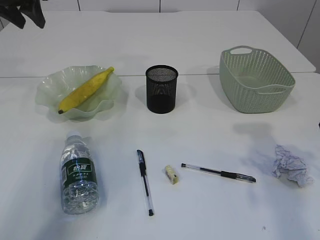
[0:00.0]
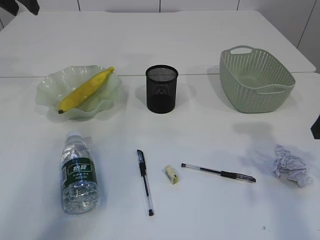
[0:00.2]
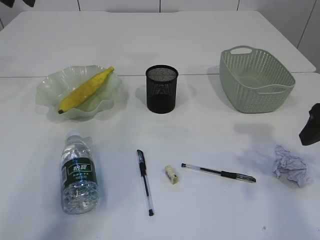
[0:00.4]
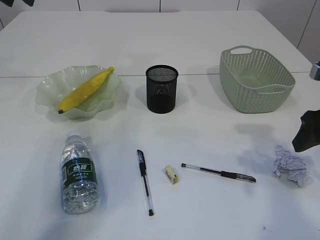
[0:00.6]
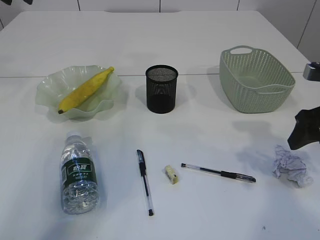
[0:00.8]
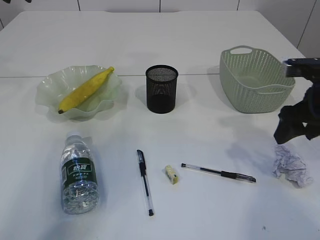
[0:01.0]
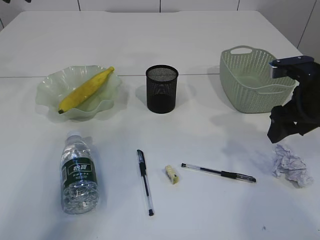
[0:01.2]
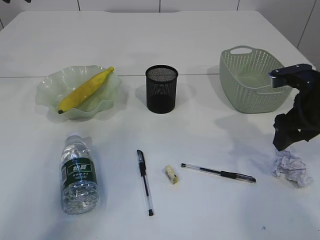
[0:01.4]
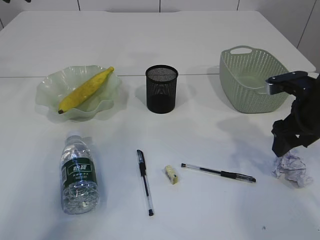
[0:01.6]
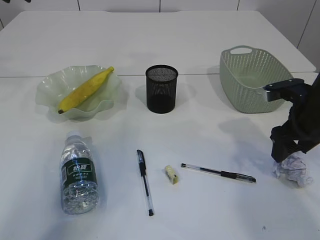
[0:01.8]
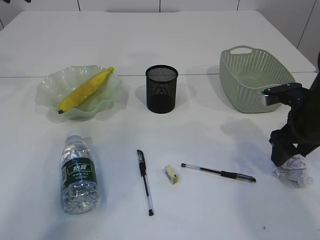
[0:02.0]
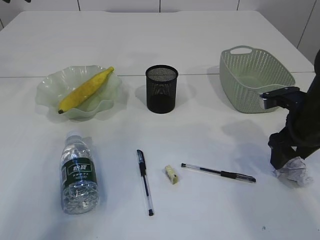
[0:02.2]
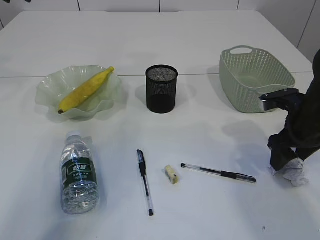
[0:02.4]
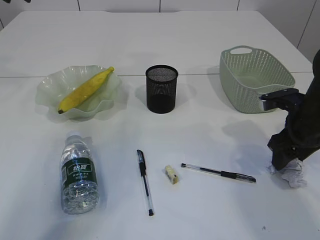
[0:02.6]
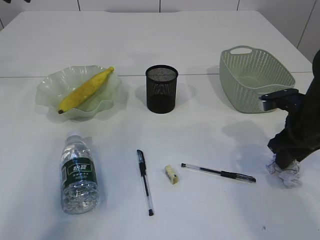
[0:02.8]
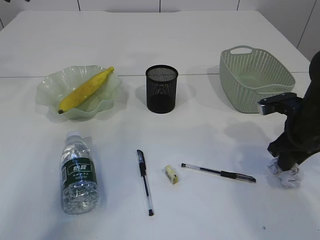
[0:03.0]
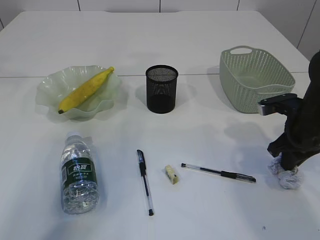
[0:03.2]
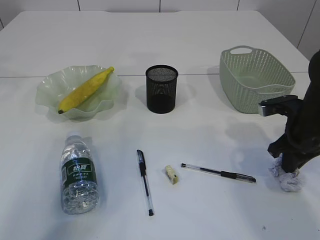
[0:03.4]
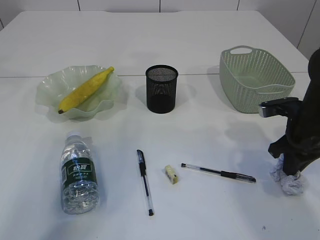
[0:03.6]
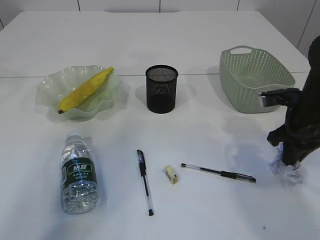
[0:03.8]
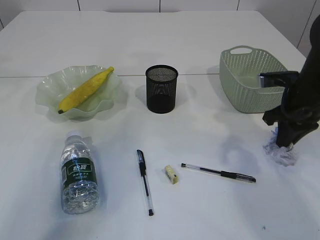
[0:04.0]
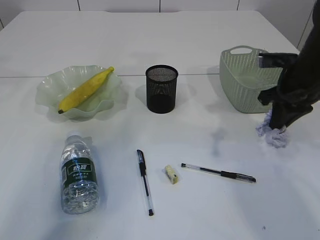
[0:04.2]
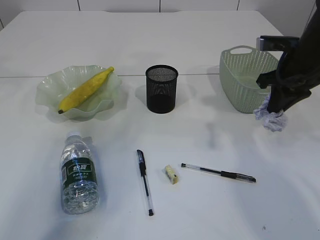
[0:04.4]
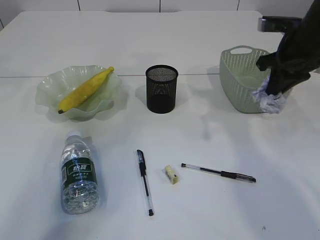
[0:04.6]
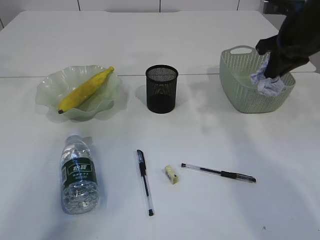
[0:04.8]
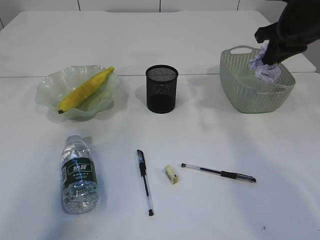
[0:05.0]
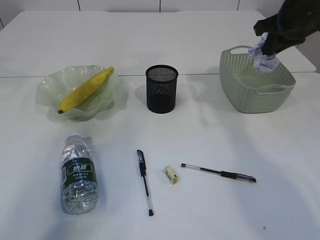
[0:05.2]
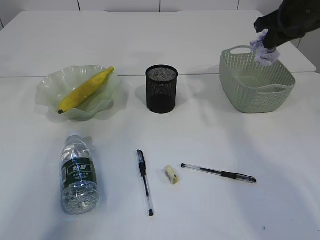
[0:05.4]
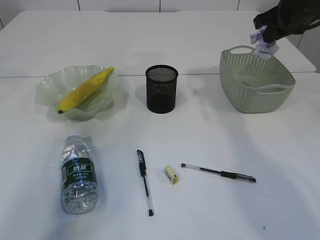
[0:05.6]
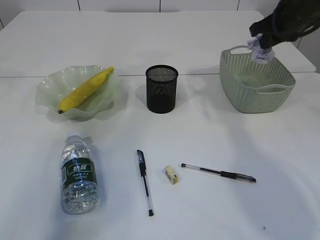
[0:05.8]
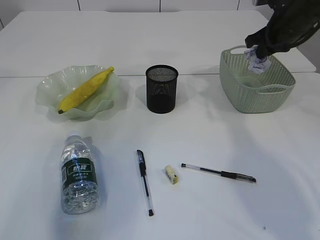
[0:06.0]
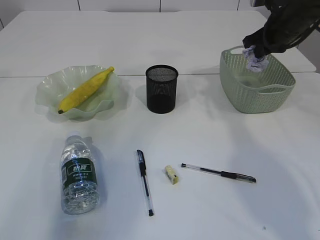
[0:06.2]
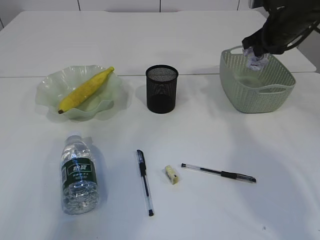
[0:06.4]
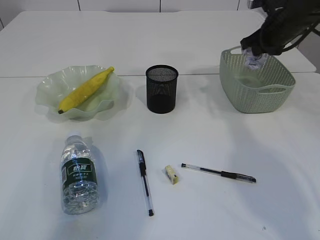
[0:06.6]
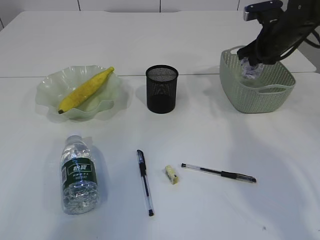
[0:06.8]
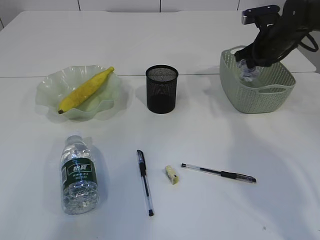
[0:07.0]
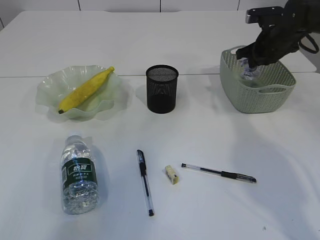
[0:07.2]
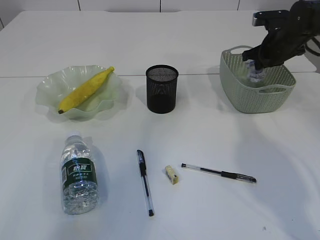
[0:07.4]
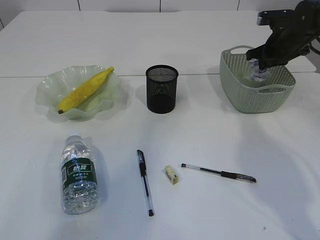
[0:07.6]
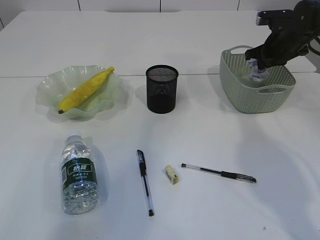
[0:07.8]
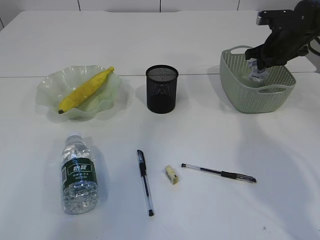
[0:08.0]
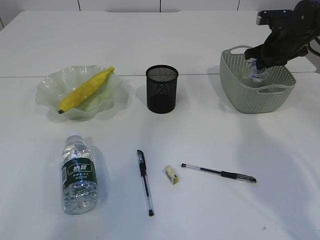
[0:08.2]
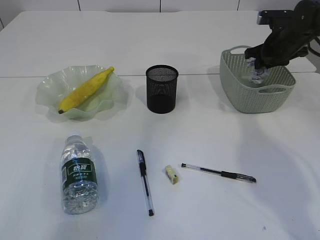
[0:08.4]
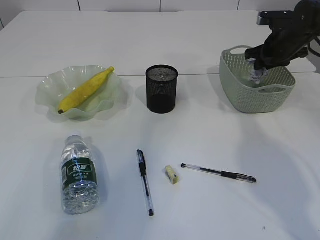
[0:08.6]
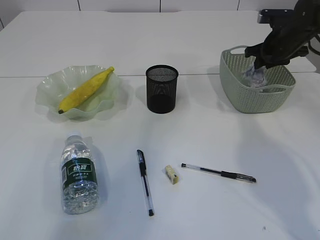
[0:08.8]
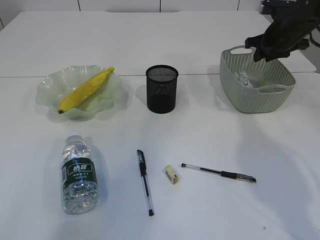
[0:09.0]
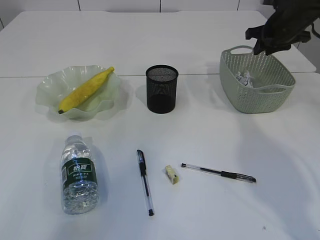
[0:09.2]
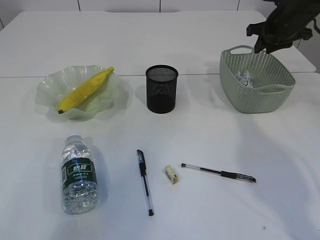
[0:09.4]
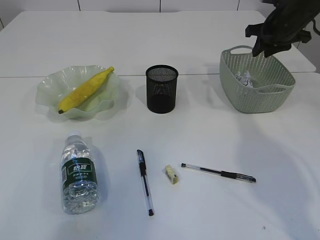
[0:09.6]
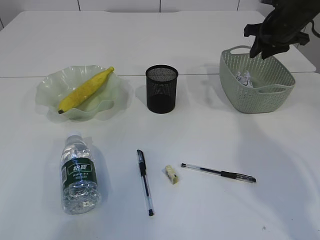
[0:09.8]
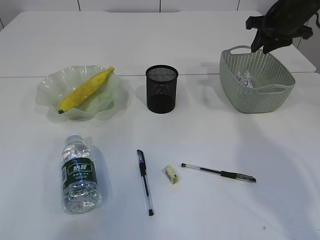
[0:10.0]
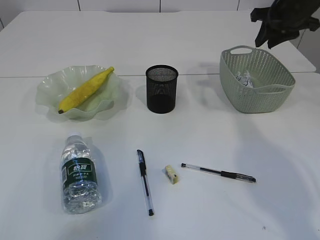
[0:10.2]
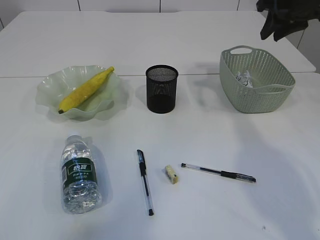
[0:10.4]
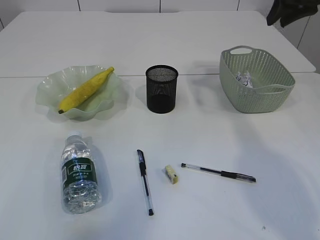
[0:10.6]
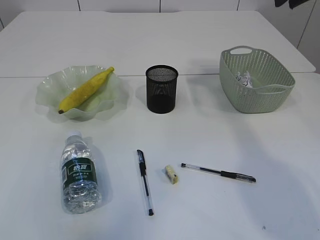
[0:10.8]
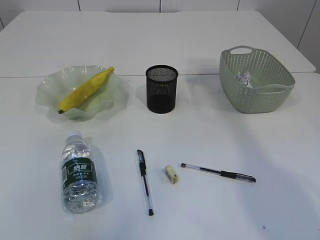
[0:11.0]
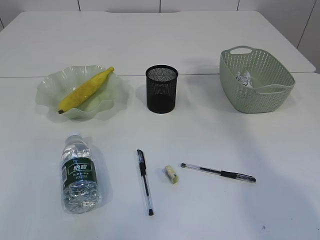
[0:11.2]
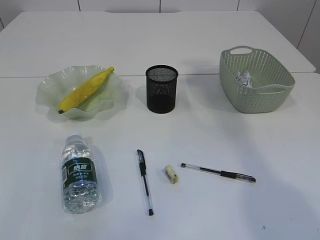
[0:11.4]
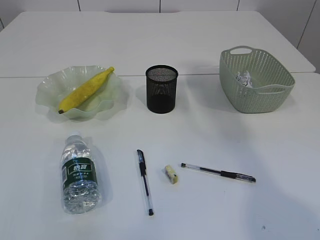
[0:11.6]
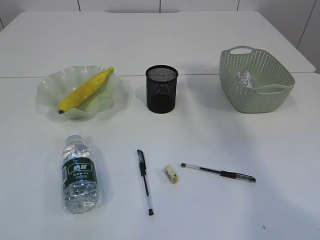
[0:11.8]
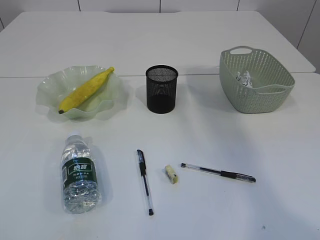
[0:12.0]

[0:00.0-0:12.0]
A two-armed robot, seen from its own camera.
Step, 0:00.0 to 0:04.0: Pick up the waste paper.
Step, 0:04.2 to 0:09.4: Place the waste paper in the basket.
0:00.0 to 0:01.6: The left gripper goes approximately 5 cm upward. The right gripper is displaced downward and forward by roughly 10 cm.
0:01.6 to 0:03.0: The right gripper closes its fingers.
0:03.0 to 0:04.4: The right gripper is displaced upward by some 10 cm, and closes.
0:04.4 to 0:06.0: The right gripper heads forward, covering about 10 cm.
0:06.0 to 0:07.6: The left gripper travels backward and upward by roughly 10 cm, while the right gripper heads downward and forward, covering approximately 10 cm.
0:07.6 to 0:09.0: The right gripper opens.
0:09.0 to 0:10.4: The right gripper goes some 10 cm upward.
0:10.4 to 0:12.0: The left gripper moves backward, roughly 10 cm. The right gripper shifts about 25 cm upward and backward.

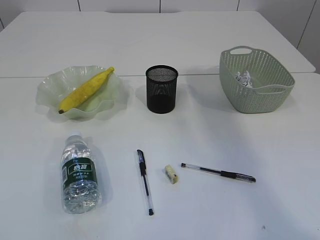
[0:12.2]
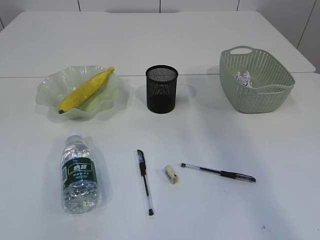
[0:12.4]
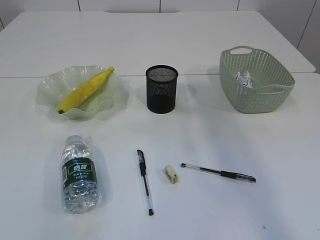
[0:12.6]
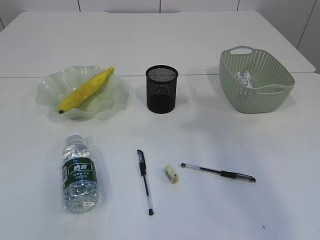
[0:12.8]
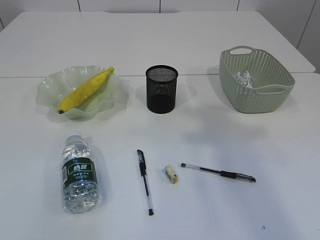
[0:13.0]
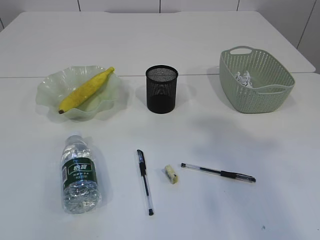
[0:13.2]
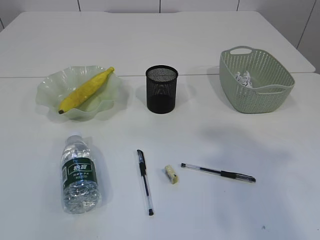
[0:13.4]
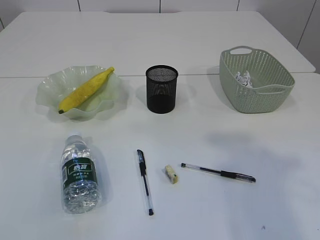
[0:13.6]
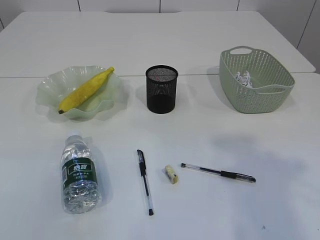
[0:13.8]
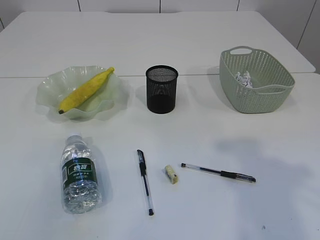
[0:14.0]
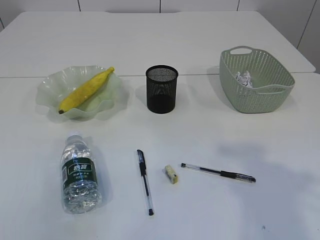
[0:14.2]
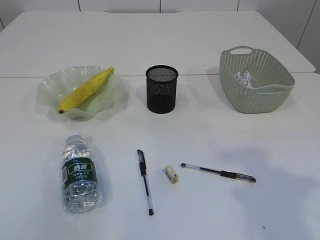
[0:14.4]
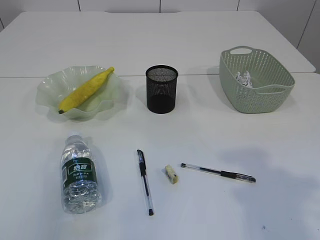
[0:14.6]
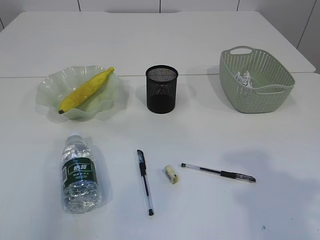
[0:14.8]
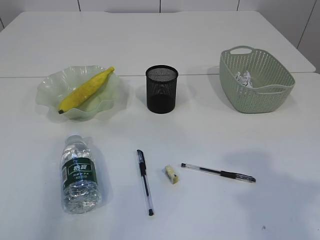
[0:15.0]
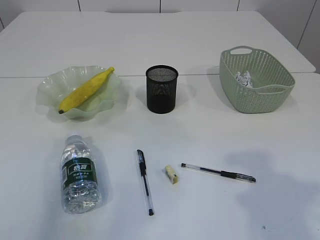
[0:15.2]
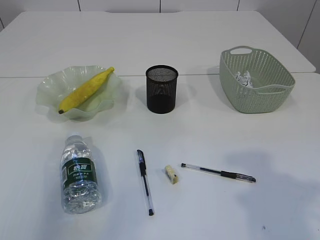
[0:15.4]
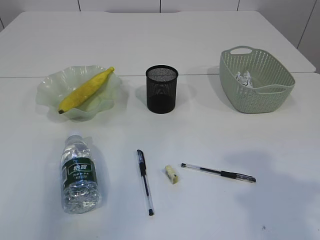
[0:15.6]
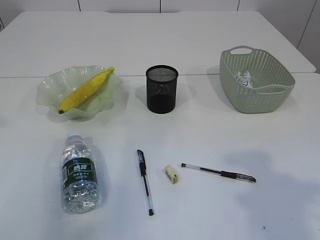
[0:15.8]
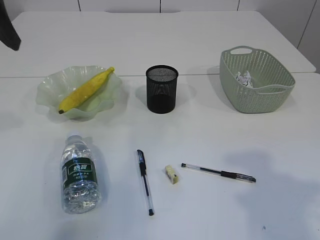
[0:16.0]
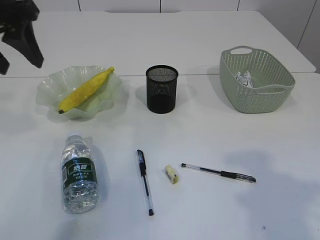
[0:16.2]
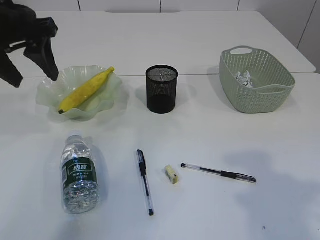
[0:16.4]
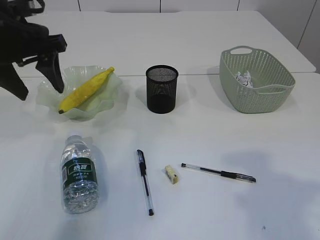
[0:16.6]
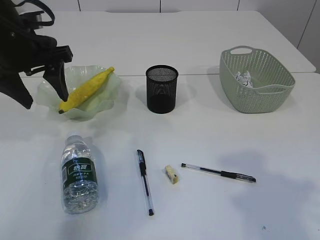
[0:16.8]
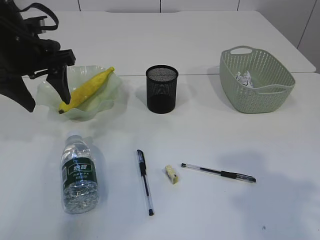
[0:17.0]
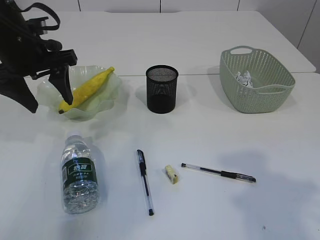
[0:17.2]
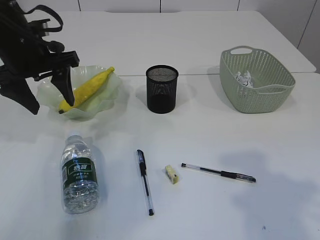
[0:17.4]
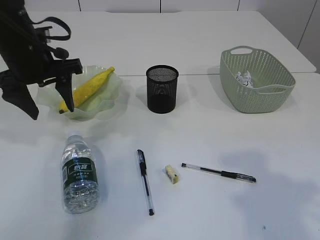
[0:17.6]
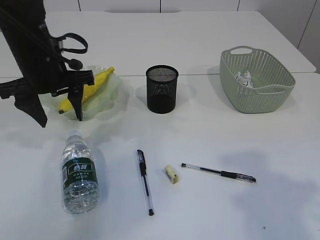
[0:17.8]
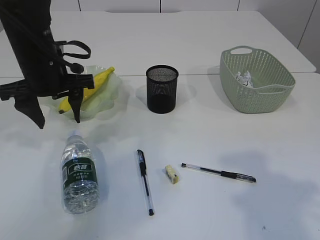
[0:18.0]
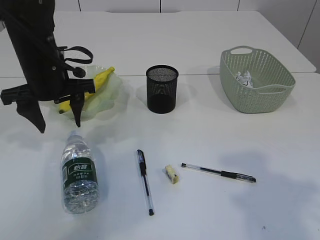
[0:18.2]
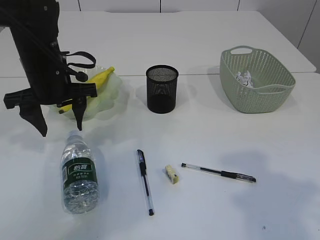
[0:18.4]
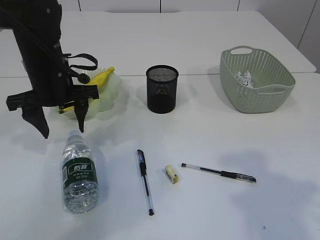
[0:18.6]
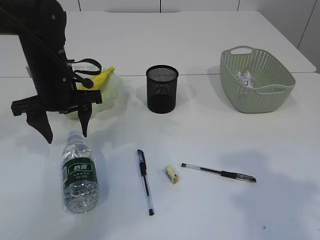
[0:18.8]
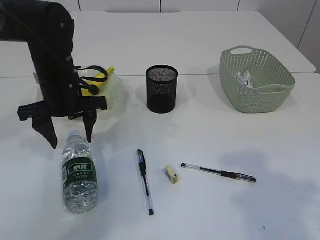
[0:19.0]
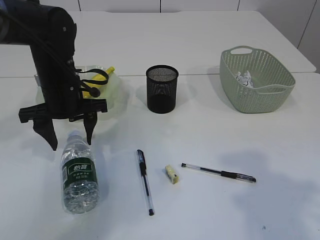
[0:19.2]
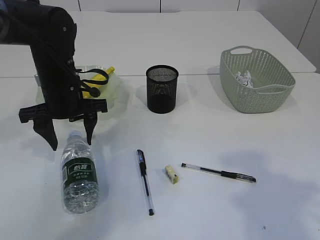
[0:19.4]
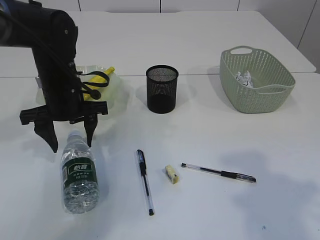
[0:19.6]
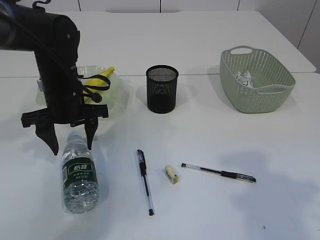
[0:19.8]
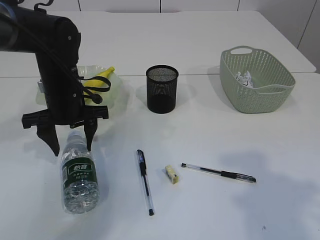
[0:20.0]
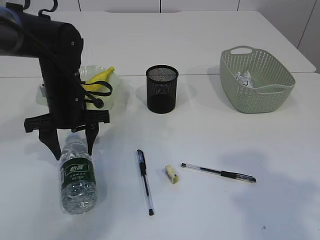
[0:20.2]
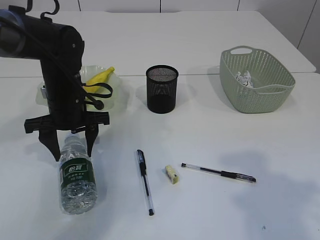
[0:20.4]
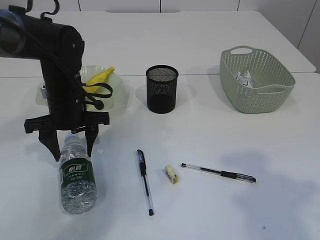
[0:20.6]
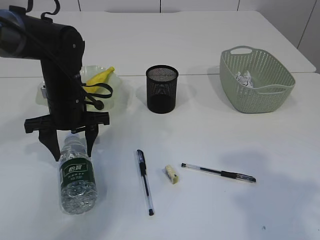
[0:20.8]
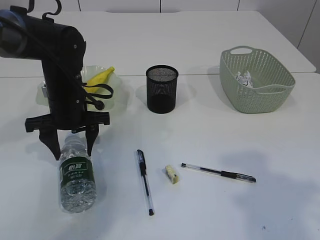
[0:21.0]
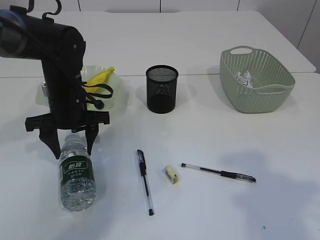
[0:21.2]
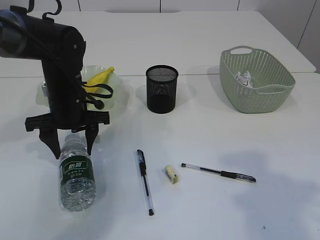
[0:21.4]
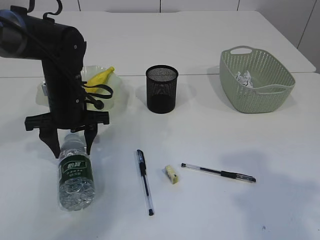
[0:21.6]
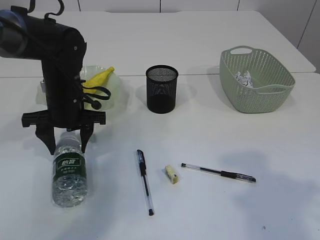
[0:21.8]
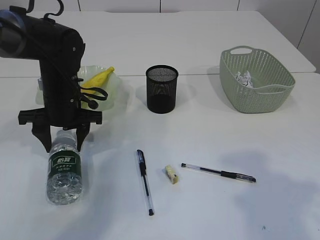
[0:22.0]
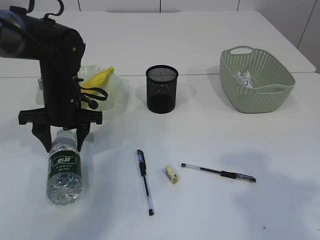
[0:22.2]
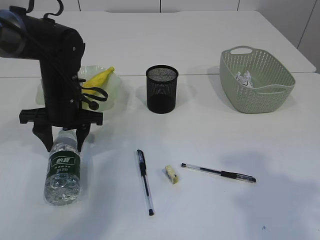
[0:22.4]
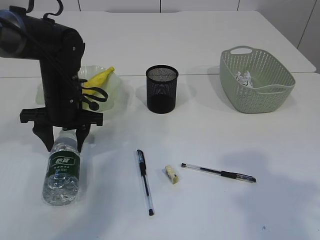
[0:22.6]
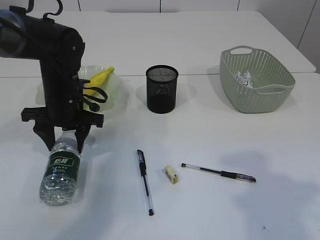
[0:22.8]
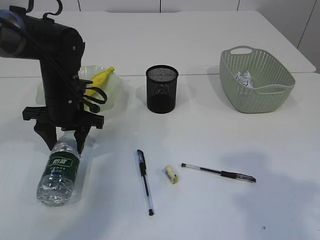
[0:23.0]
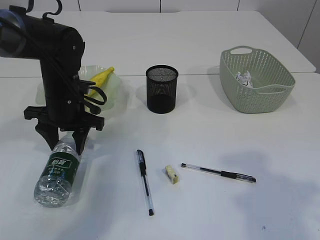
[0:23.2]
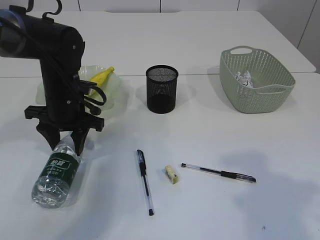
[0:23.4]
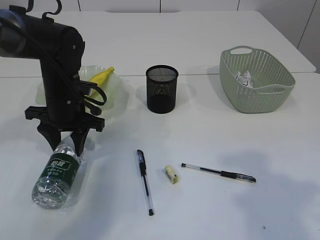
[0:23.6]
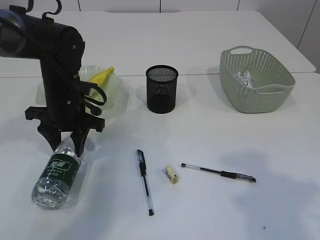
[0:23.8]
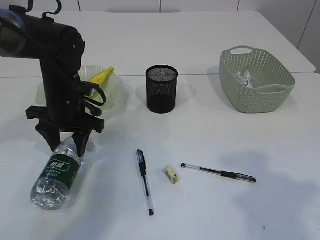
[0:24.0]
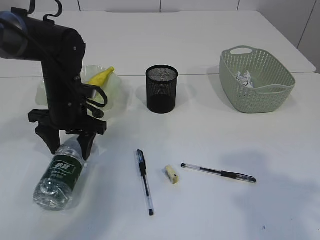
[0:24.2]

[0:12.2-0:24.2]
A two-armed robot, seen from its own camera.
0:12.2 to 0:13.8: The right gripper shifts about 20 cm backward and downward.
0:15.2 to 0:16.6: The left gripper travels downward, forward and to the right by about 20 cm, and opens up.
0:16.6 to 0:18.2: The left gripper travels downward by roughly 10 cm.
0:18.2 to 0:19.8: The left gripper heads downward, covering about 5 cm.
0:19.8 to 0:22.6: There are only small adjustments of the grippers.
0:22.6 to 0:24.2: The grippers stay close to where they were, moving slightly.
